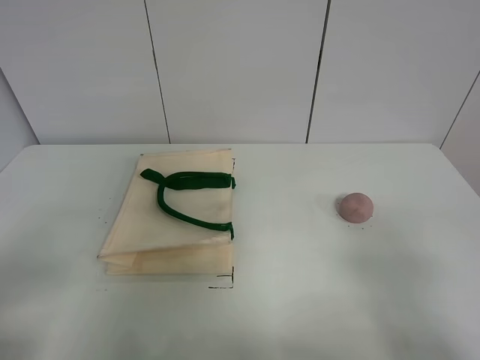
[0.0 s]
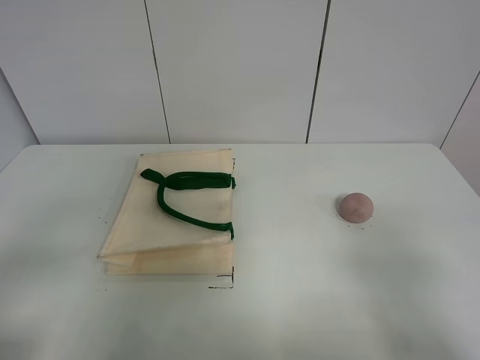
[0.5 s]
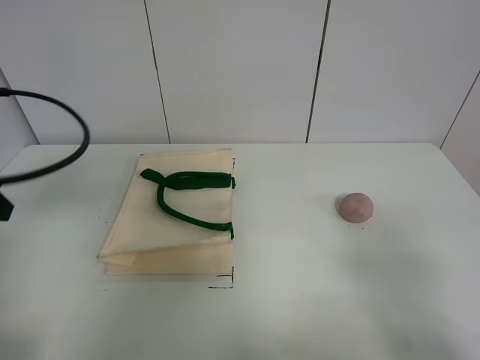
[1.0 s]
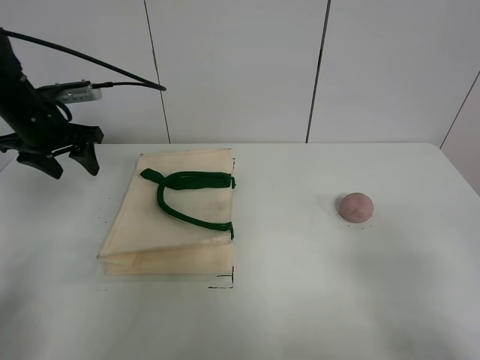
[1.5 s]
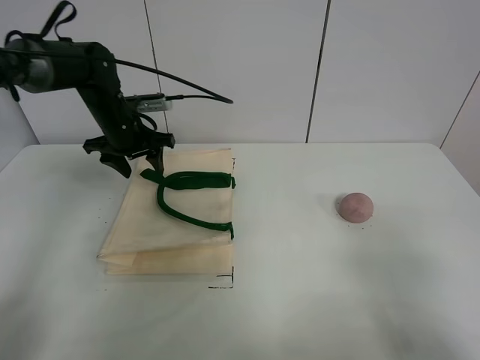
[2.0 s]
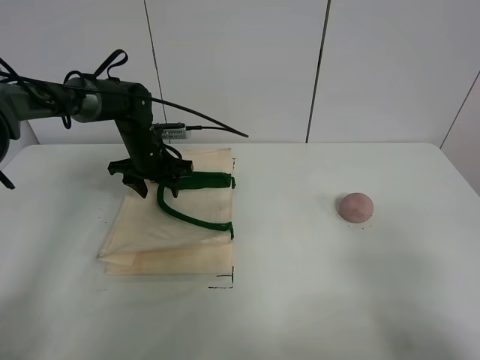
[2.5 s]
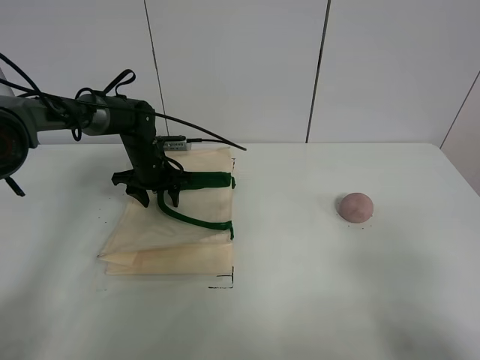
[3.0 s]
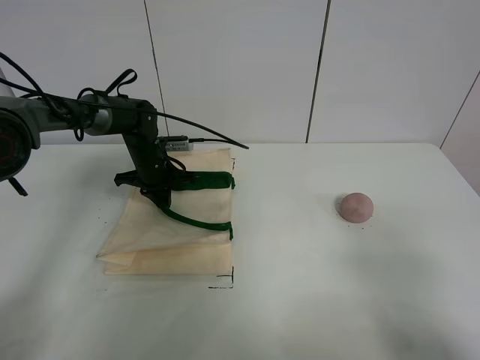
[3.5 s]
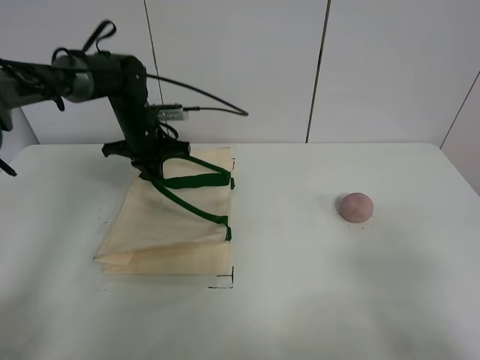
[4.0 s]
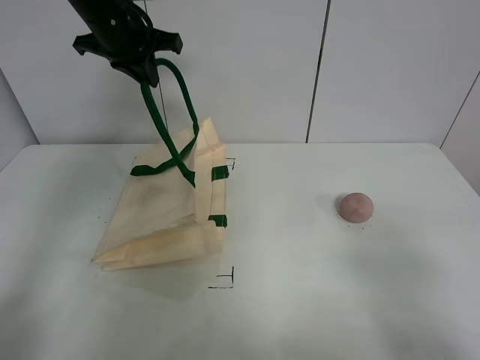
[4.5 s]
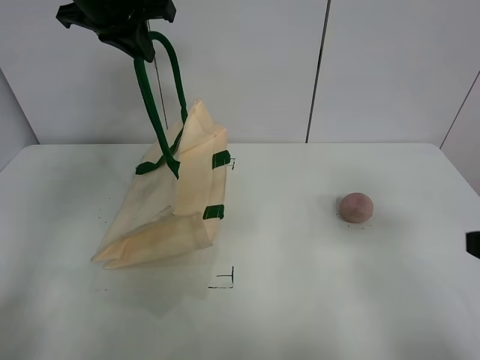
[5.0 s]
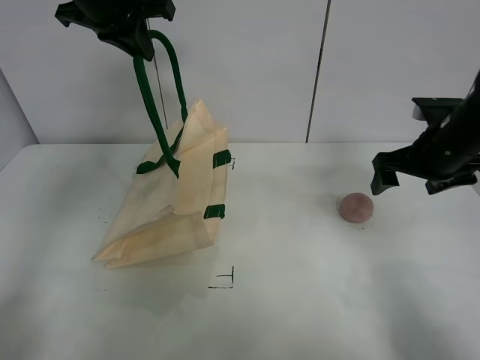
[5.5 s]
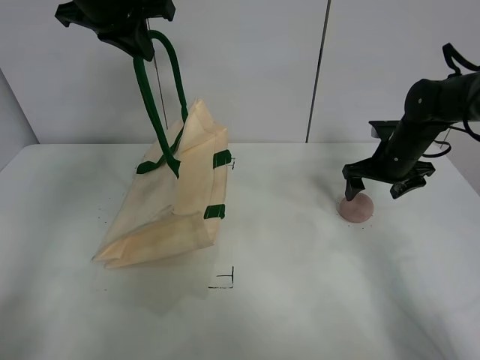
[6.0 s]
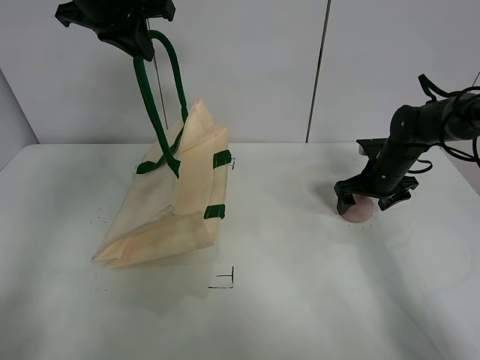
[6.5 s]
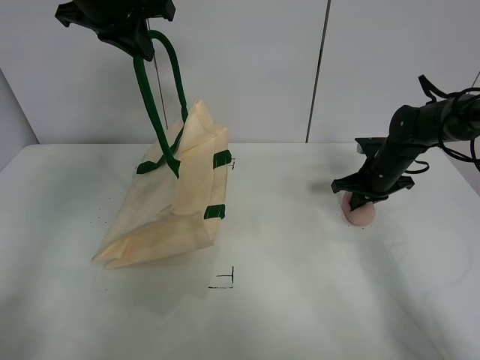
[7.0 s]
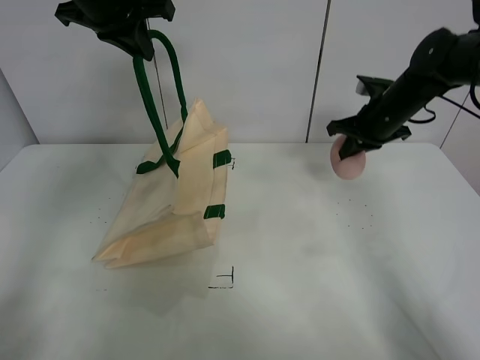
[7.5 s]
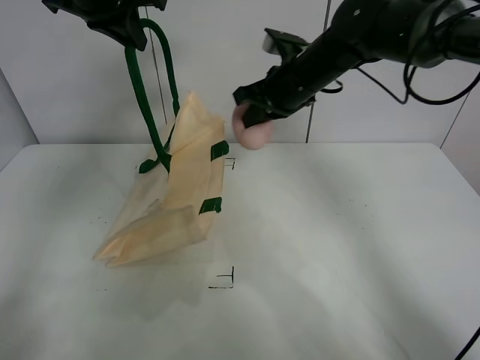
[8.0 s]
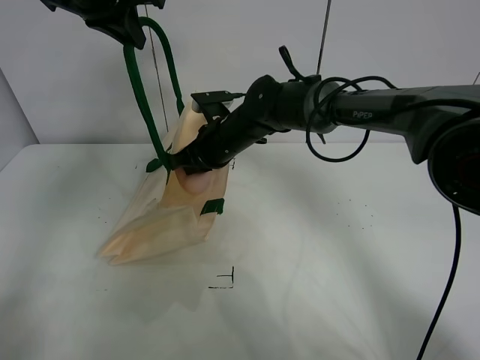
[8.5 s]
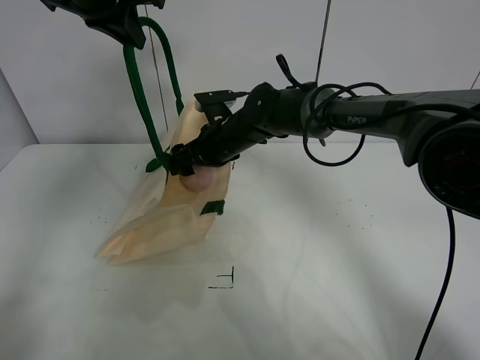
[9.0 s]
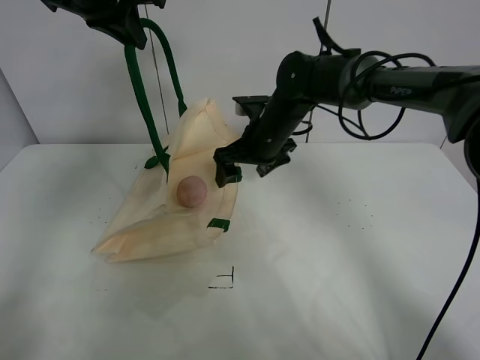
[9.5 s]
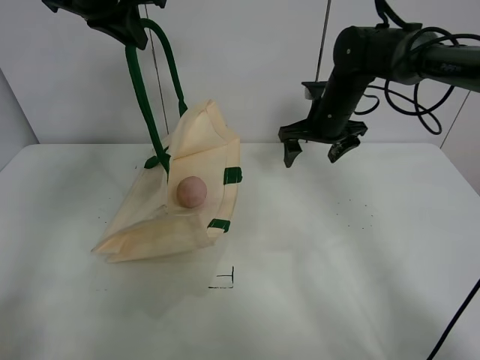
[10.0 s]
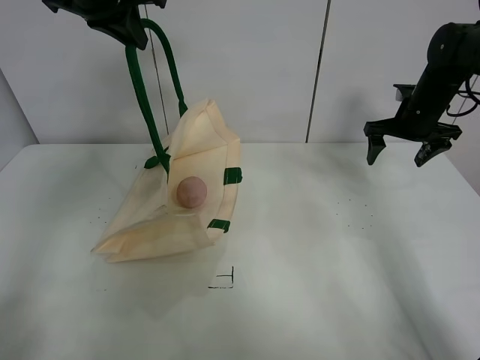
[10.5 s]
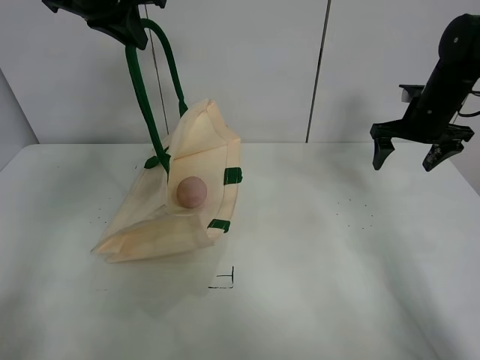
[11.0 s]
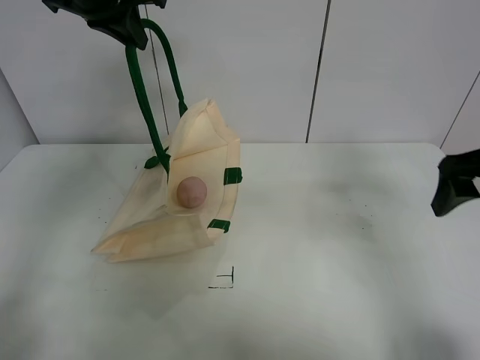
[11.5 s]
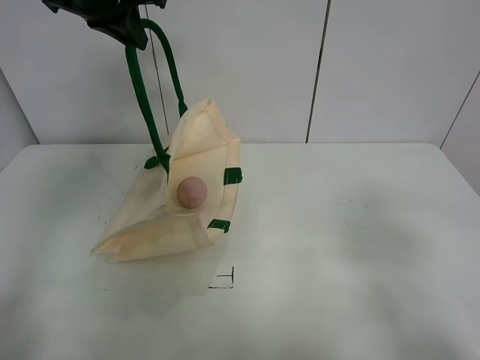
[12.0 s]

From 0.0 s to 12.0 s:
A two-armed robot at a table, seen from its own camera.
Task of the whole recording: open the white linen bag and put the peach in the bag.
Step, from 0.0 s to 4.5 s: Lift the handbag with left gripper.
Step, from 5.0 s to 7.0 s: Grasp the peach with right gripper.
Step, from 7.5 s to 9.0 s: Place the peach in the handbag with right gripper.
From 0.0 s to 2.0 s: The left gripper goes roughly 40 cm forward.
From 2.0 s to 4.0 s: The left gripper moves about 10 cm downward and comes back, and closes its fingers.
From 4.0 s to 6.0 s: The left gripper travels upward by approximately 20 cm, while the right gripper goes some 40 cm forward.
From 6.0 s to 8.0 s: The right gripper travels to the left and upward by some 25 cm, and closes up.
From 8.0 s to 10.0 s: The right gripper goes approximately 10 cm to the right and downward, and opens its fingers.
From 10.0 s to 12.0 s: The right gripper heads backward, covering some 40 cm.

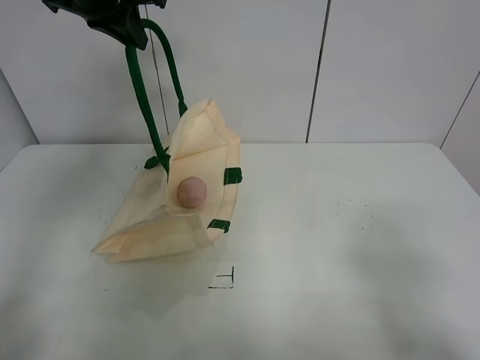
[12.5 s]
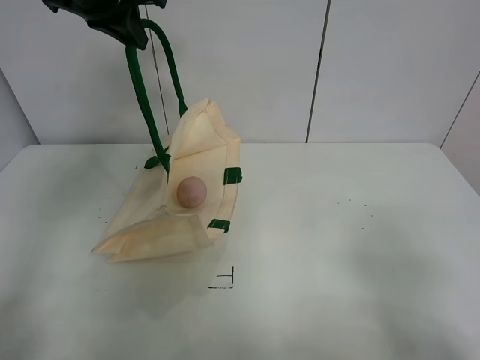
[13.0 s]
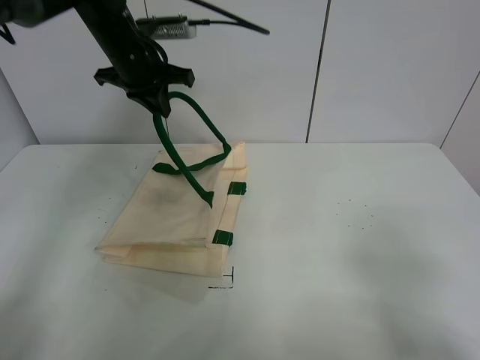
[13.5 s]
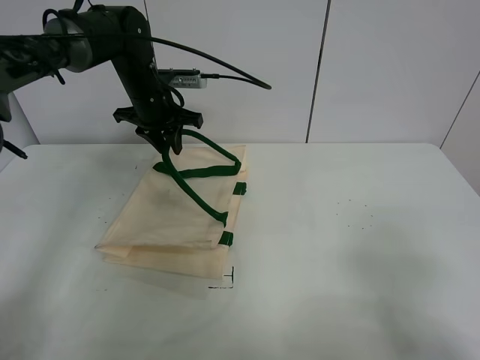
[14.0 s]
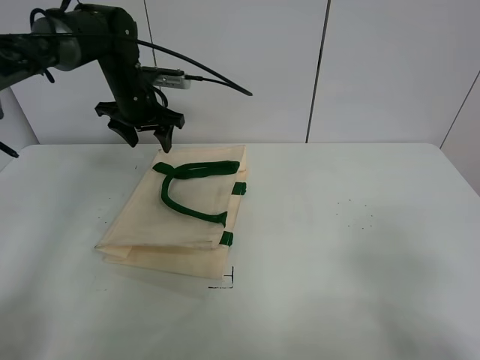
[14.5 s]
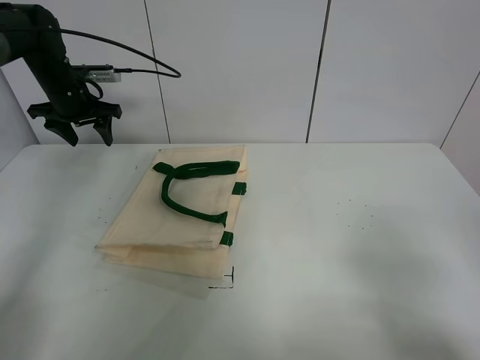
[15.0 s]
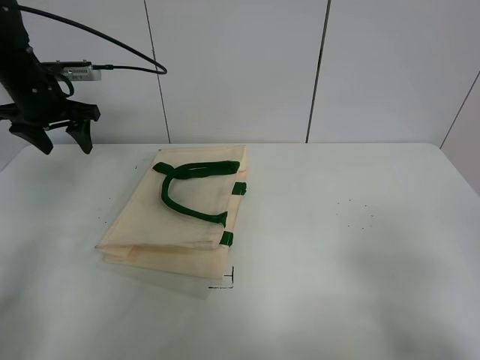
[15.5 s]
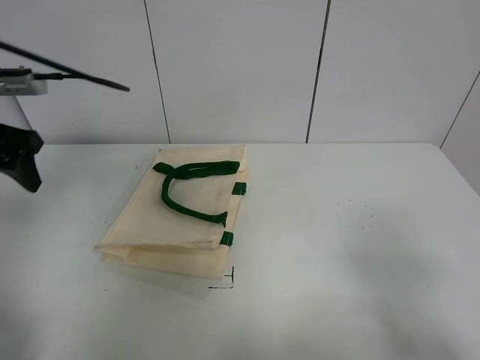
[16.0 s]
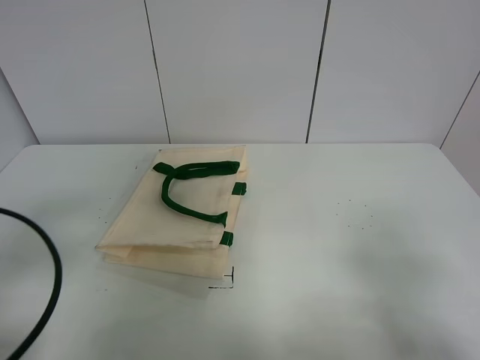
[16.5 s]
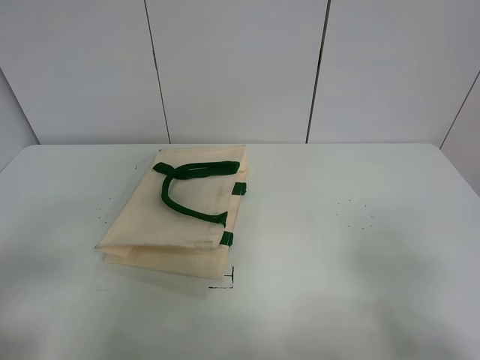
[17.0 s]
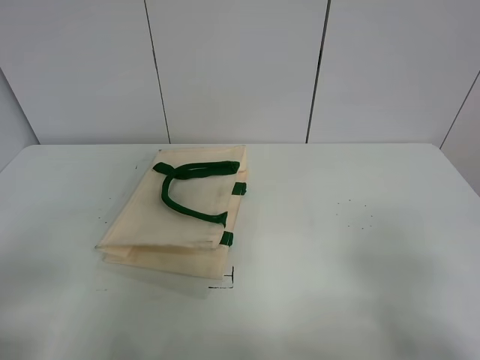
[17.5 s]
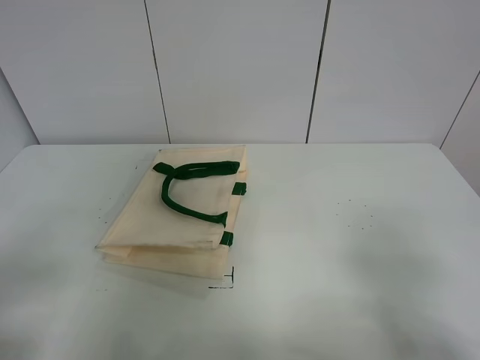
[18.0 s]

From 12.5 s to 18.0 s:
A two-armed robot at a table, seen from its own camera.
Task of the whole recording: open the white linen bag and put the peach in the bag.
From 12.5 s to 14.5 s: The left gripper travels downward and forward by roughly 20 cm, and opens up.
From 14.5 s to 16.0 s: The left gripper moves backward and to the left, approximately 25 cm.
From 16.0 s to 18.0 s: The left gripper travels backward by some 25 cm.
